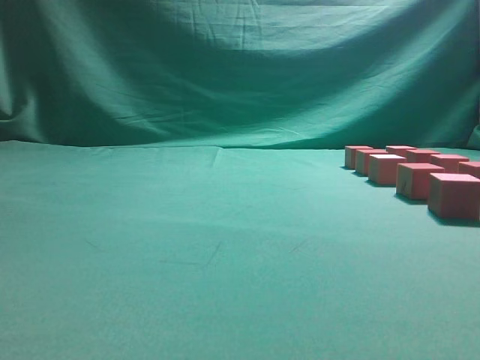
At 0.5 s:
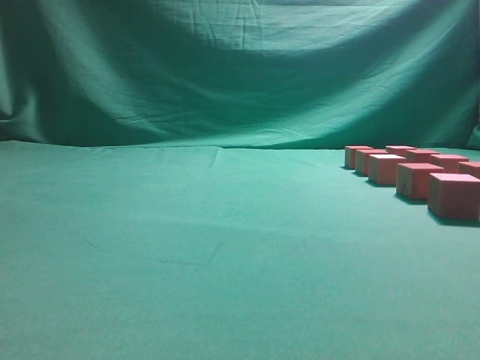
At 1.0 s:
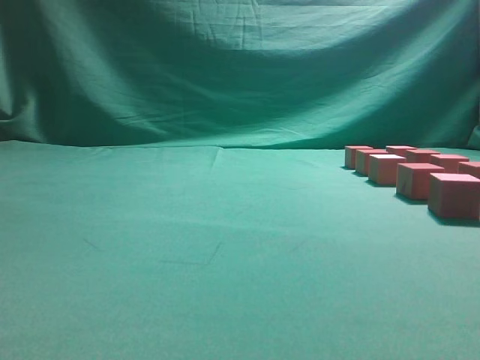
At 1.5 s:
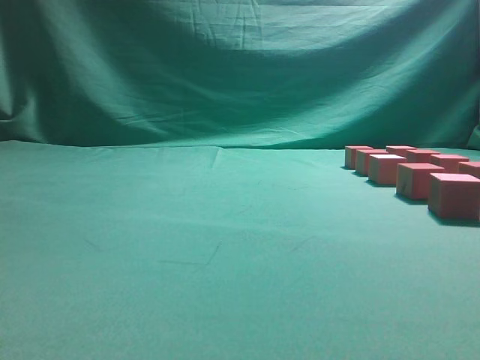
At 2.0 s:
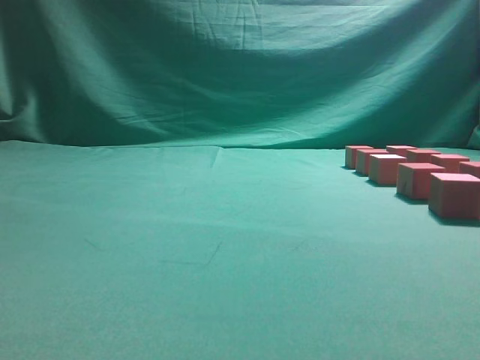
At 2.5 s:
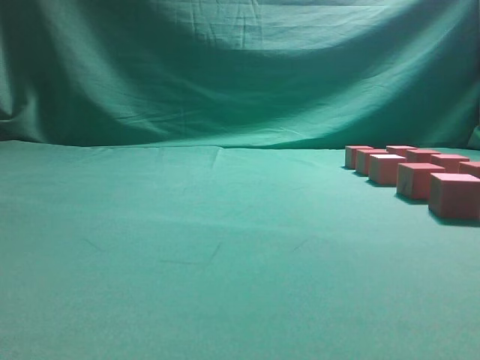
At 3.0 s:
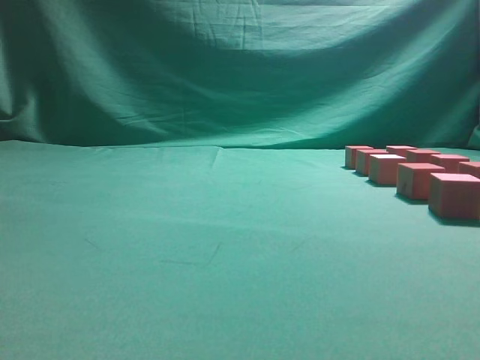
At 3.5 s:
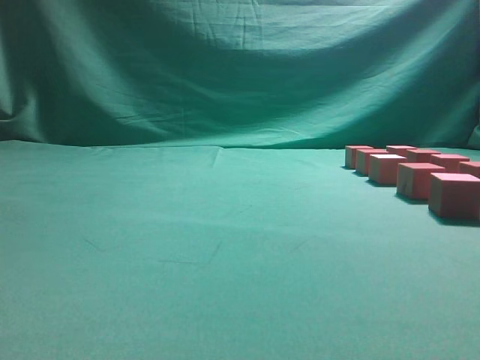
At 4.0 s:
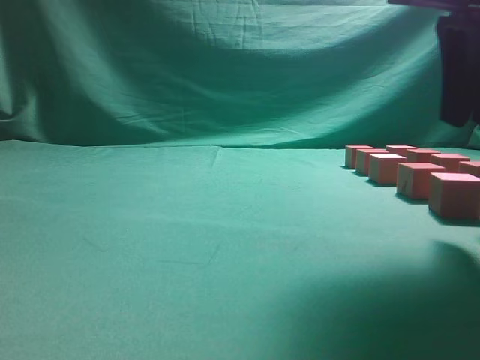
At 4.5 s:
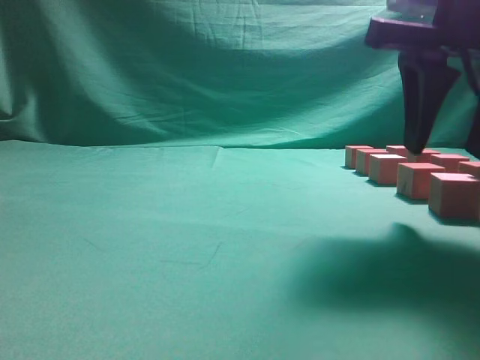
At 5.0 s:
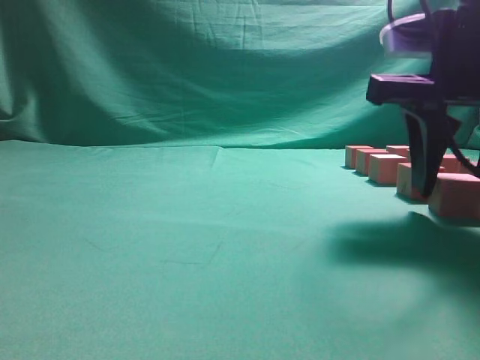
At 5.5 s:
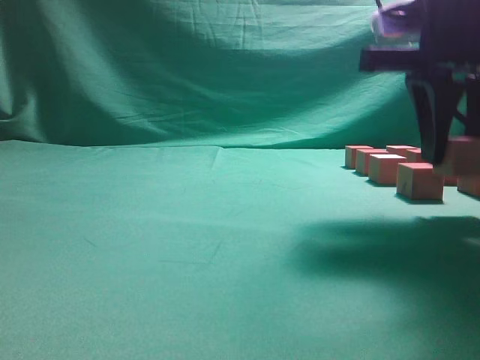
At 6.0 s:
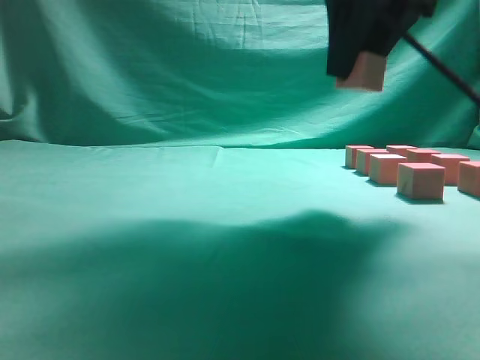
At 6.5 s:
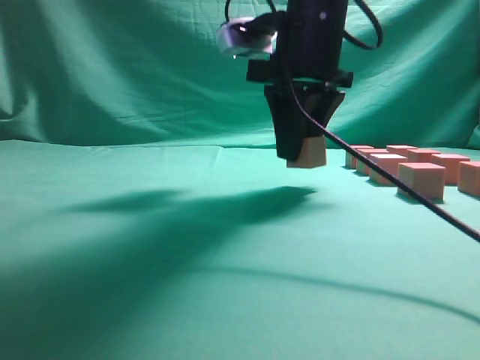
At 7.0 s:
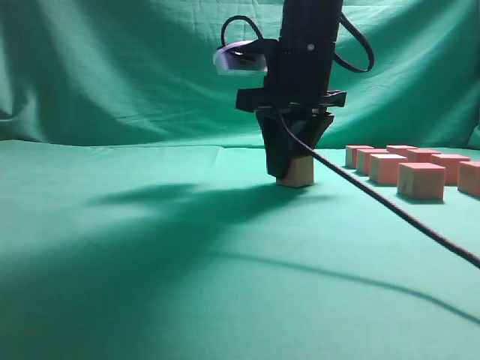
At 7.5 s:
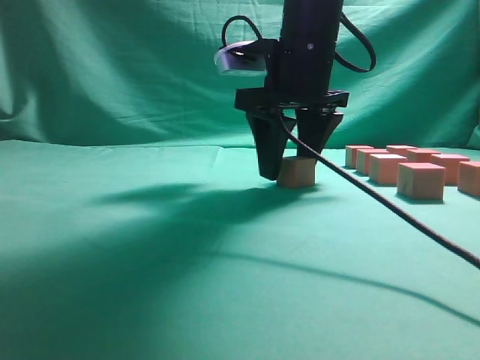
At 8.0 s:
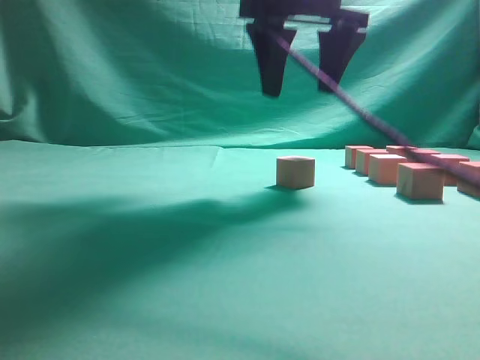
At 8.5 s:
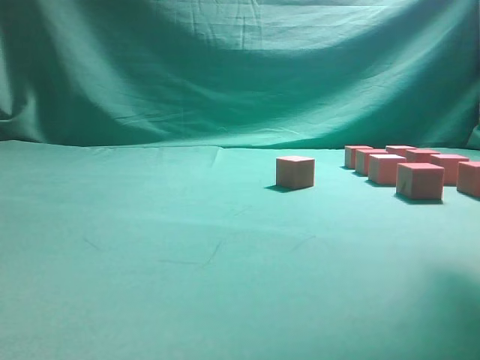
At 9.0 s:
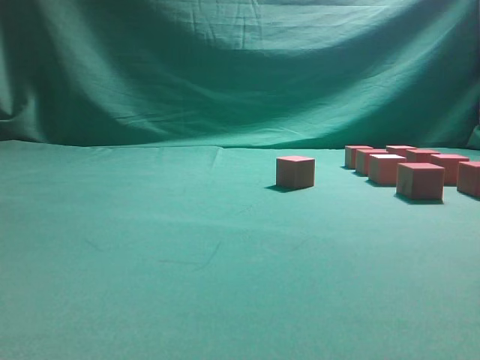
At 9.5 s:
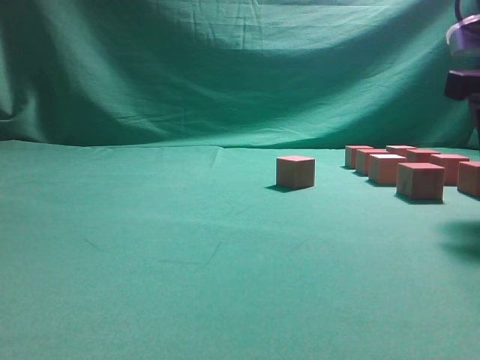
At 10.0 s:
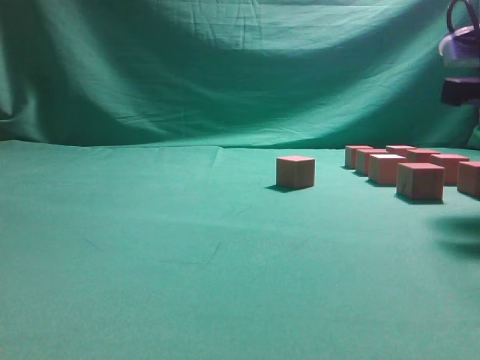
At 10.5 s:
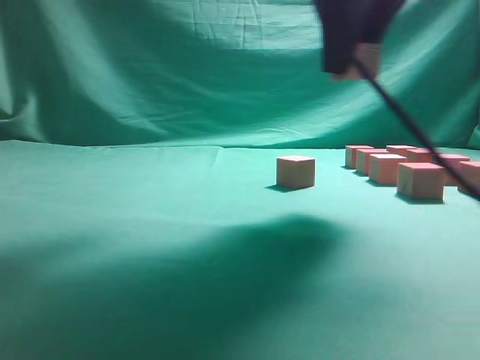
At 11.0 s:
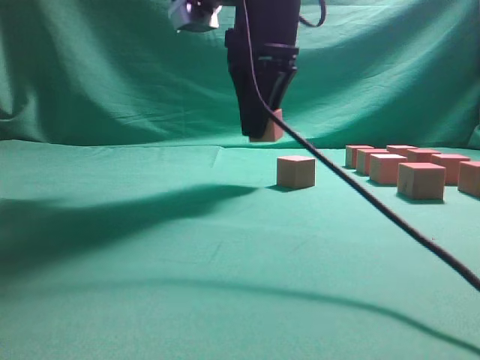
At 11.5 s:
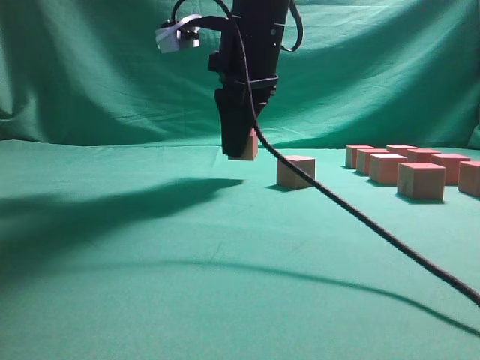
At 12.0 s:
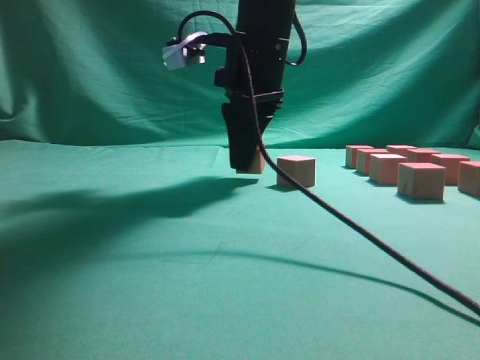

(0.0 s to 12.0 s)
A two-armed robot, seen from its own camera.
Task of the whole recording: pick up the multiple cubes in two columns one by one and place them in another position on the table.
Step, 0.0 s - 5.0 s: Pick up the block on the table.
Step, 6.0 s - 8.0 s: Place the block at the correct position to assemble the letter S.
Step, 8.5 s - 10.0 s: Pick up the block on the table.
2.0 s - 4.0 s: The right gripper shifts about 20 cm forward and to the left.
4.0 s - 6.0 s: The right gripper travels forward and to the left by approximately 10 cm.
6.0 s - 8.0 s: The right gripper moves to the left, about 5 cm, travels downward and back again, some 10 cm each way, and opens its fingers.
8.0 s - 10.0 s: The right gripper shifts about 20 cm to the right, backward and downward, and closes its fingers.
10.0 s - 12.0 s: The right gripper shifts approximately 25 cm to the left and forward.

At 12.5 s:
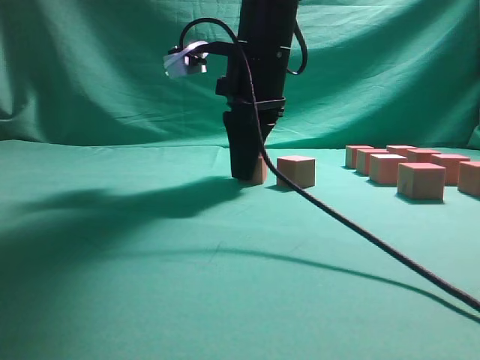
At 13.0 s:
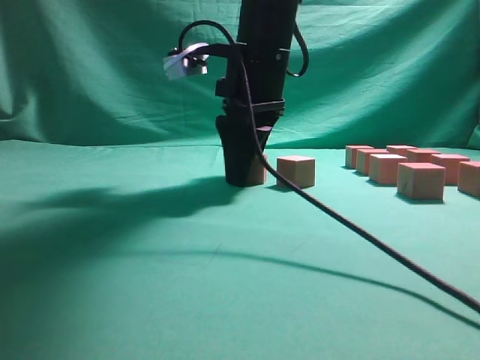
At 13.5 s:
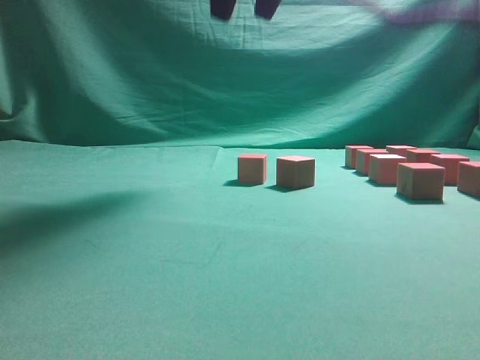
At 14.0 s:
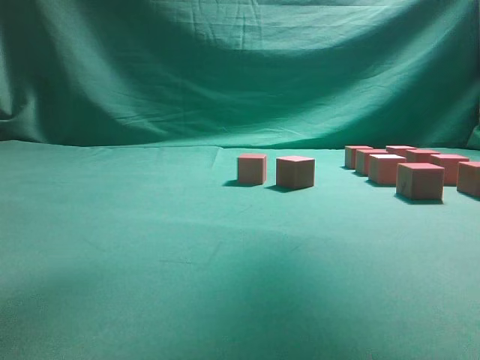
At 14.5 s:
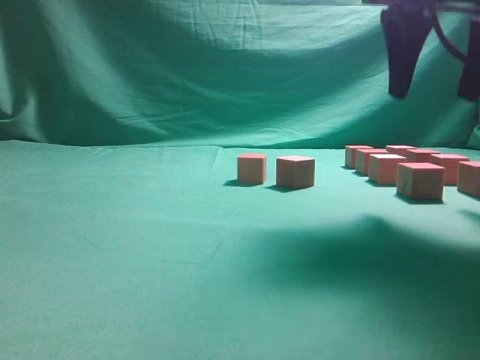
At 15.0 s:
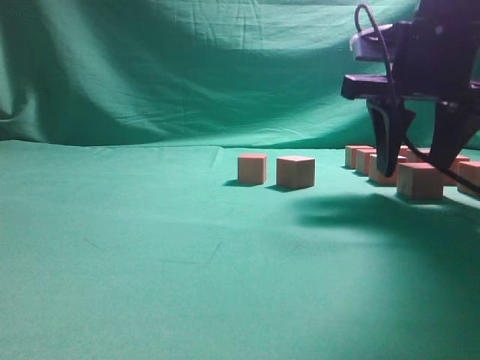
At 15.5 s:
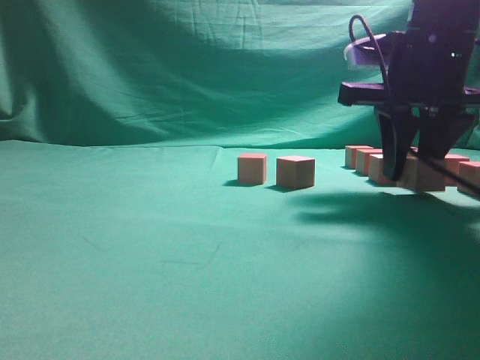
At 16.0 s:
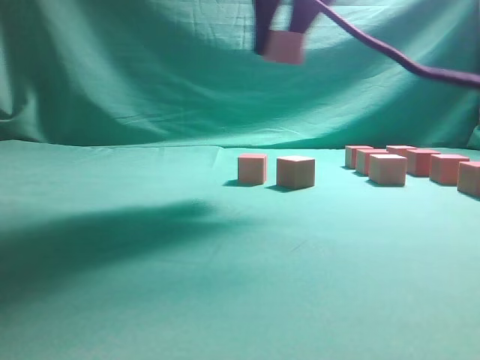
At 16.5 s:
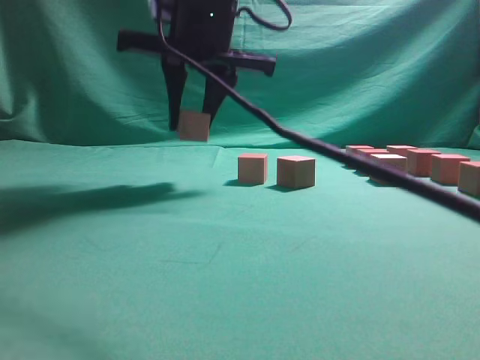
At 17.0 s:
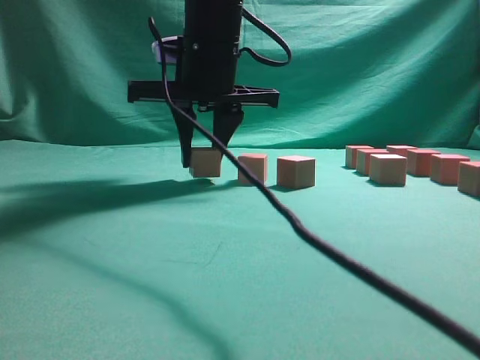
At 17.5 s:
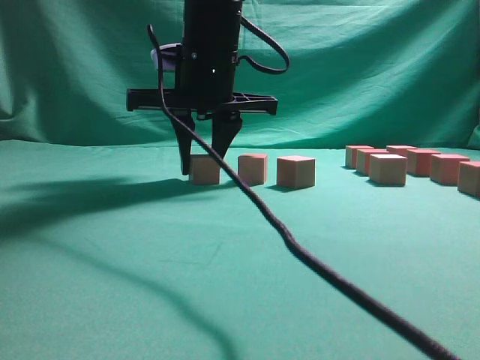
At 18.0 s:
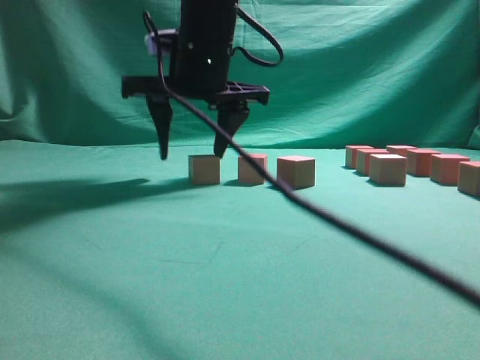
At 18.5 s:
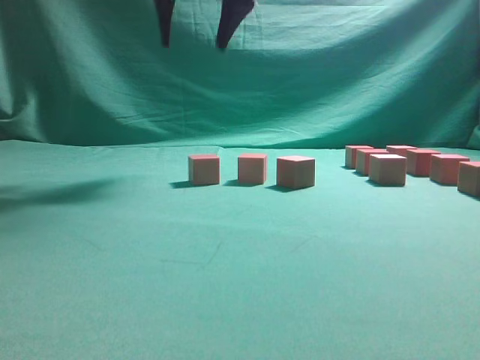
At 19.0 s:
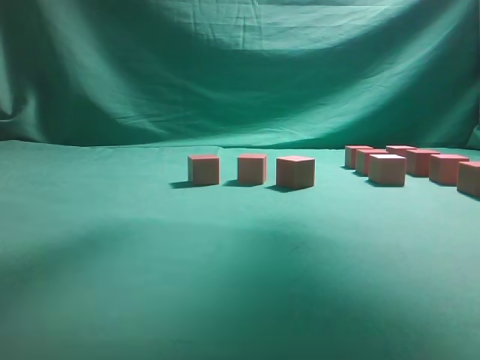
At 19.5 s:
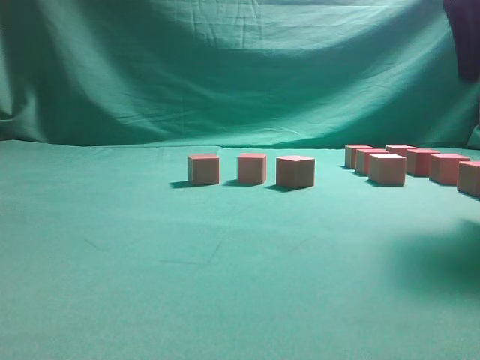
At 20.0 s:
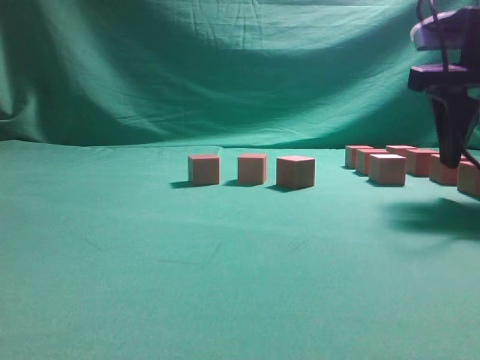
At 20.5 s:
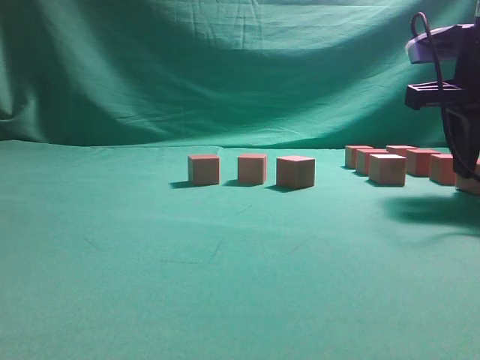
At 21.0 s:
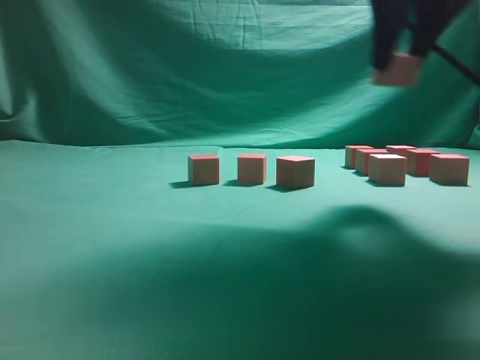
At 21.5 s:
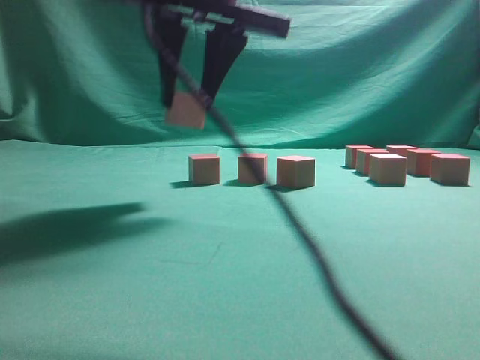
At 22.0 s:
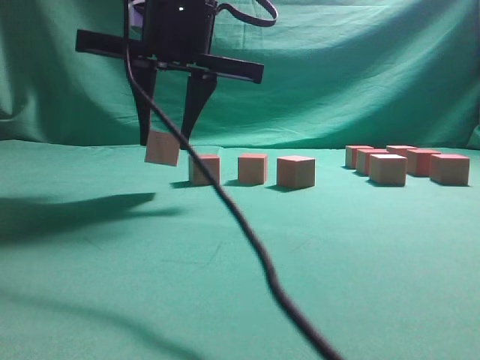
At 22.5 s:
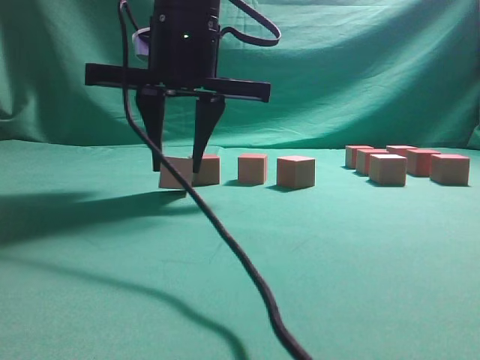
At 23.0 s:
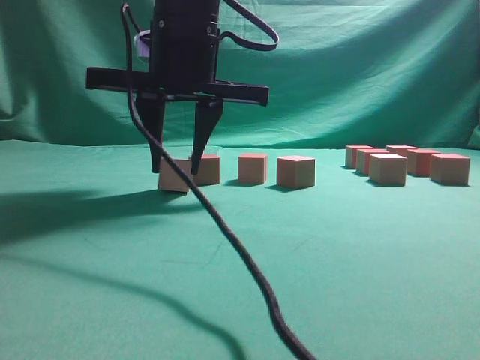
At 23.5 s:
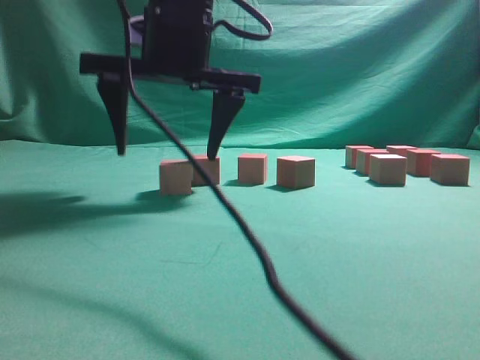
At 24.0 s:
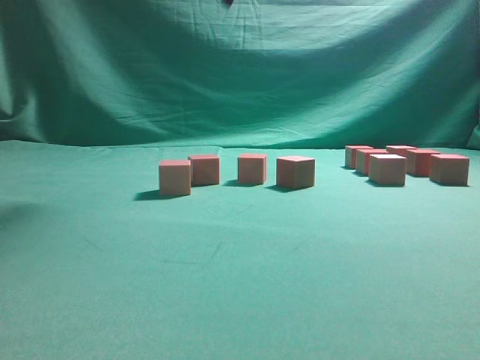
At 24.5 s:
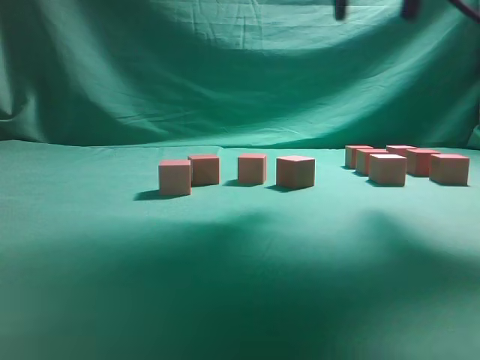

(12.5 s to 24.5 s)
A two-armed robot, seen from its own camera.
Task of the whole recording: pick up the multiple cubes in two columns one by one and place them in another position on the table.
Step, 13.5 s - 15.5 s: Pick up the block on the table.
Step, 16.0 s - 18.0 s: Place the block at the correct position to assemble the letter S.
Step, 18.5 s - 20.5 s: Pick up the block on the table.
Step, 21.0 s - 23.5 s: Place the block at the correct position to assemble the letter S.
12.5 s - 14.5 s: The right gripper goes some 20 cm to the right and backward, travels upward and back again, about 25 cm each way, and opens its fingers.
14.5 s - 16.5 s: The right gripper moves to the left, about 20 cm, and closes its fingers.
16.5 s - 18.5 s: The right gripper moves upward, approximately 10 cm, and opens up.
18.5 s - 20.5 s: The right gripper shifts some 30 cm to the right and downward, and closes up.
20.5 s - 22.5 s: The right gripper shifts roughly 30 cm to the left.
22.5 s - 24.5 s: The right gripper shifts some 25 cm to the right and upward, and opens up.

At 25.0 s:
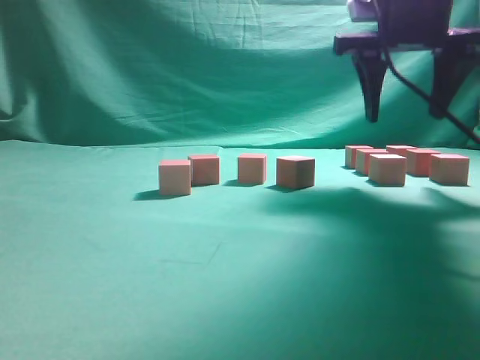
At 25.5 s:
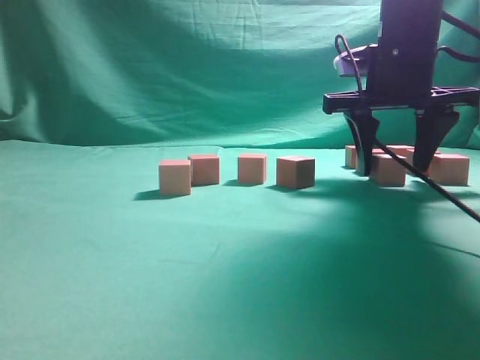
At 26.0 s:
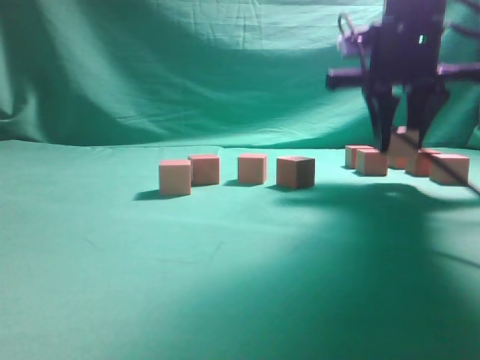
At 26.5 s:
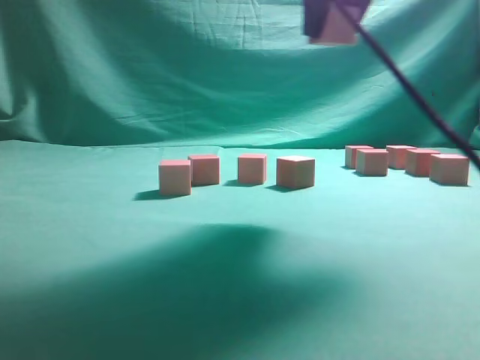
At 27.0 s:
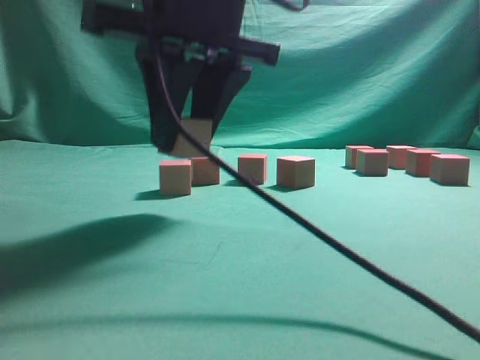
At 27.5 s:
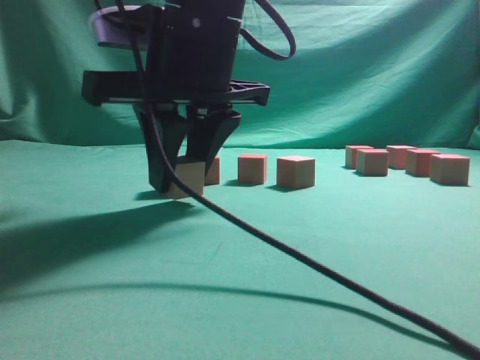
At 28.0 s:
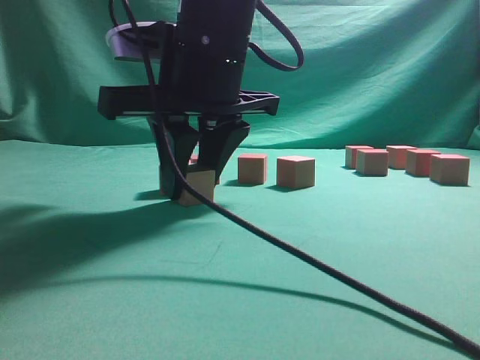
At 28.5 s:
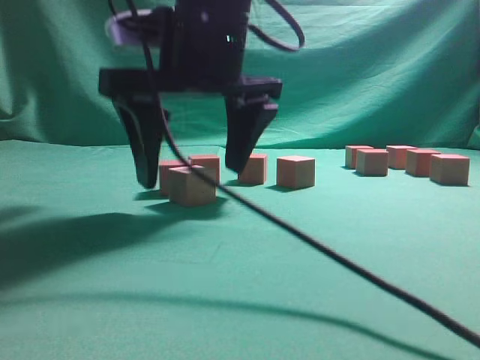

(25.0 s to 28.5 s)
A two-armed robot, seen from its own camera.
Task of the whole recording: pick up the multiple cubes in two columns one by one and place them in another position on the table.
25.0 s - 27.0 s: The right gripper moves to the left and backward, approximately 20 cm, and closes up.
27.0 s - 28.5 s: The right gripper opens.
